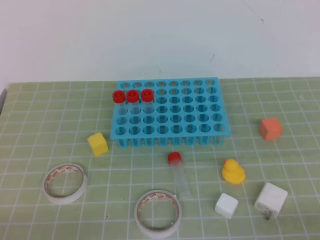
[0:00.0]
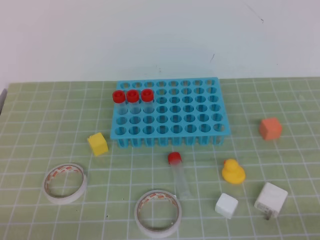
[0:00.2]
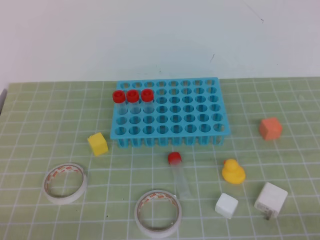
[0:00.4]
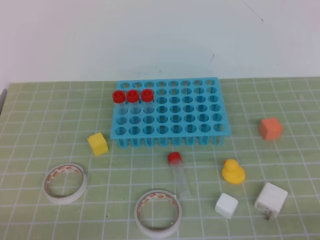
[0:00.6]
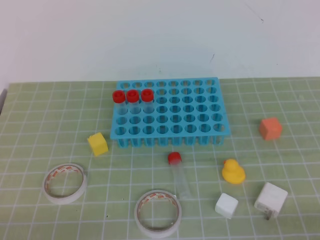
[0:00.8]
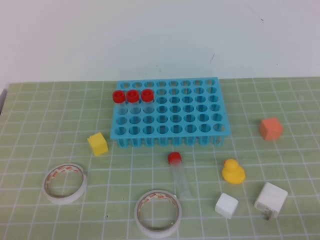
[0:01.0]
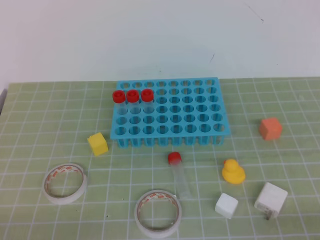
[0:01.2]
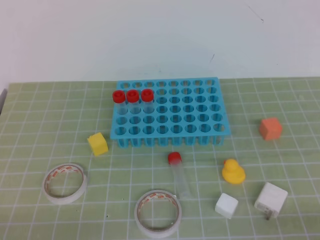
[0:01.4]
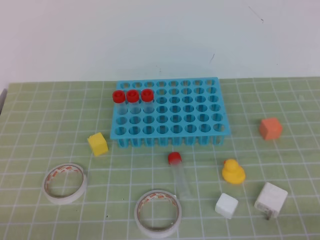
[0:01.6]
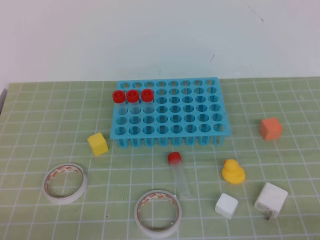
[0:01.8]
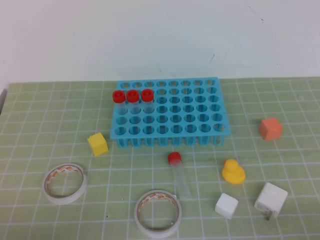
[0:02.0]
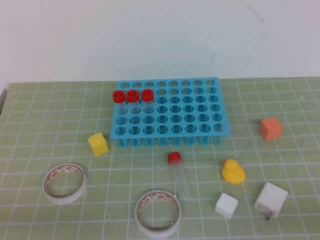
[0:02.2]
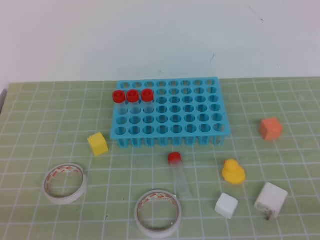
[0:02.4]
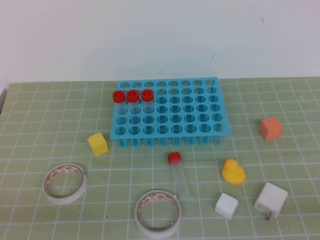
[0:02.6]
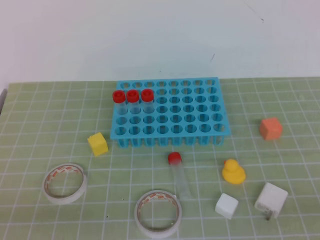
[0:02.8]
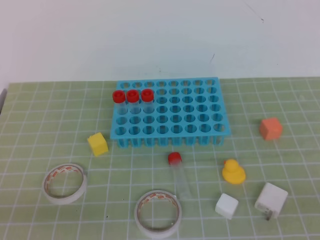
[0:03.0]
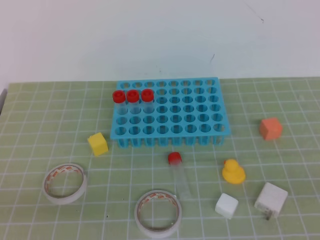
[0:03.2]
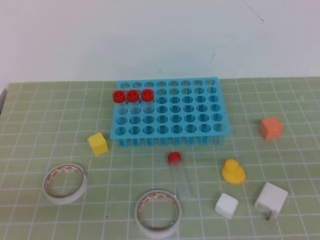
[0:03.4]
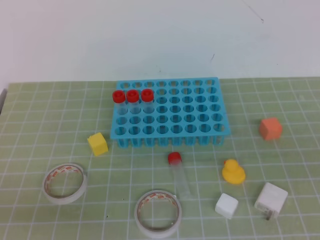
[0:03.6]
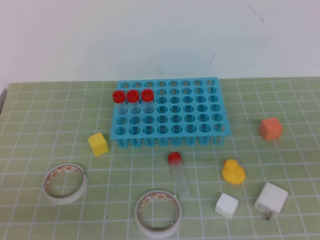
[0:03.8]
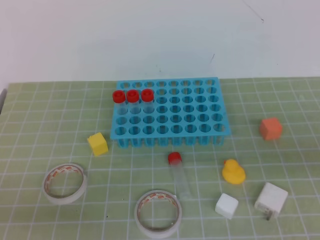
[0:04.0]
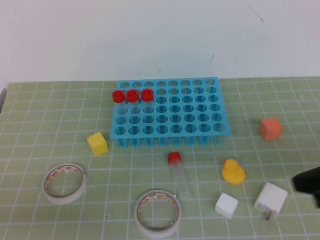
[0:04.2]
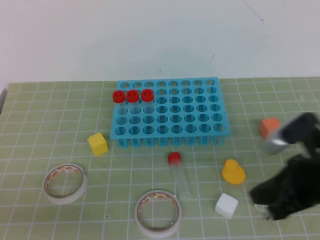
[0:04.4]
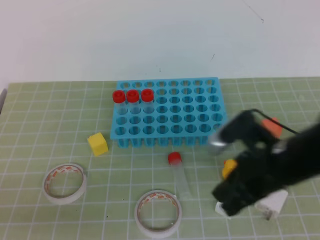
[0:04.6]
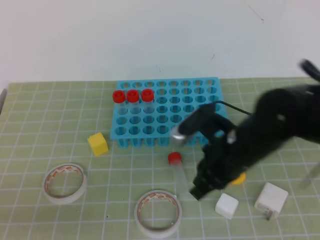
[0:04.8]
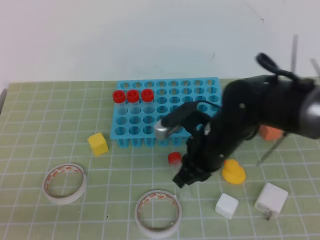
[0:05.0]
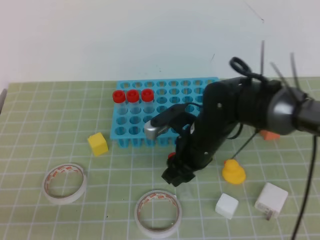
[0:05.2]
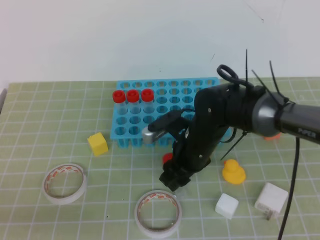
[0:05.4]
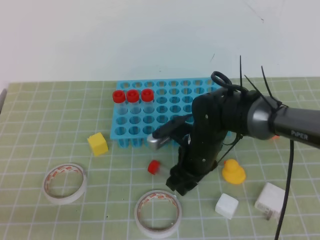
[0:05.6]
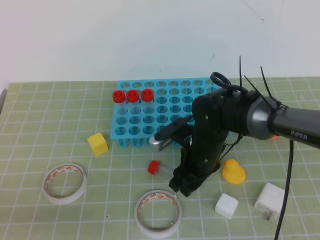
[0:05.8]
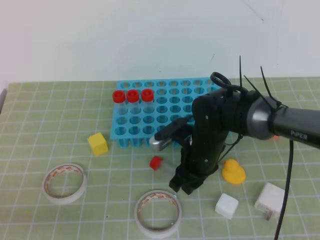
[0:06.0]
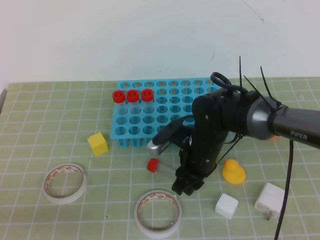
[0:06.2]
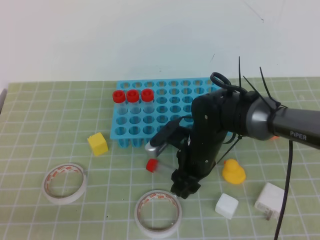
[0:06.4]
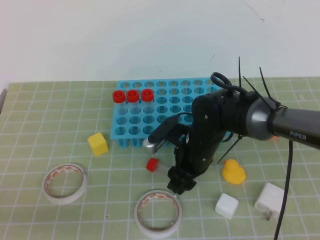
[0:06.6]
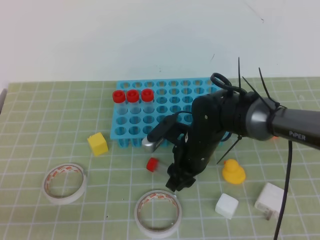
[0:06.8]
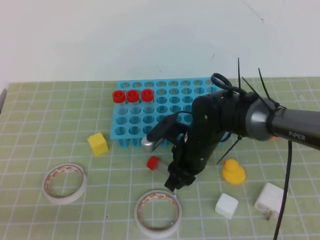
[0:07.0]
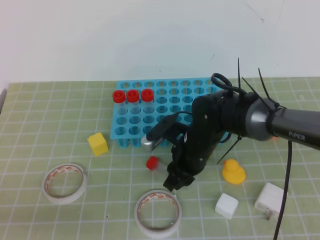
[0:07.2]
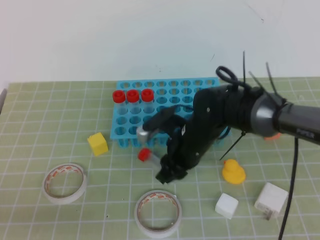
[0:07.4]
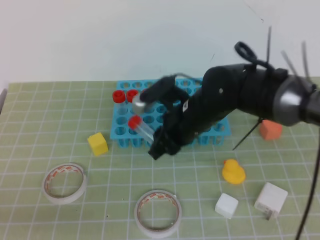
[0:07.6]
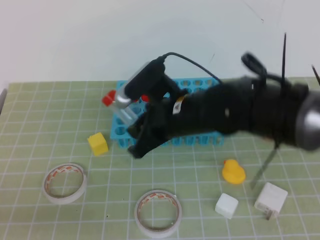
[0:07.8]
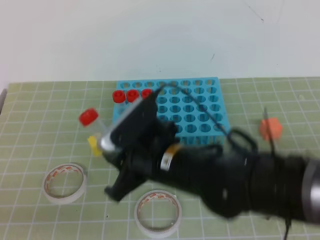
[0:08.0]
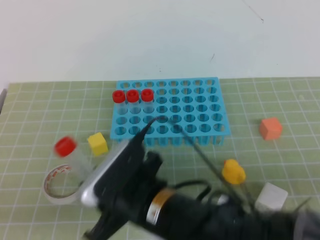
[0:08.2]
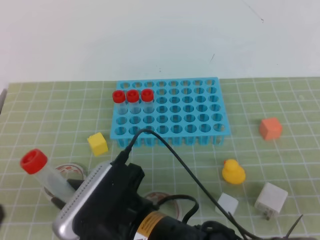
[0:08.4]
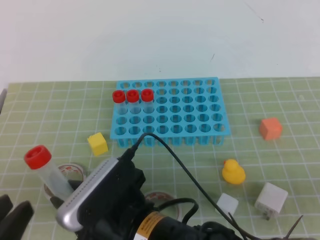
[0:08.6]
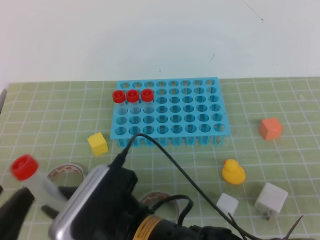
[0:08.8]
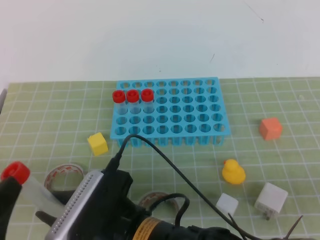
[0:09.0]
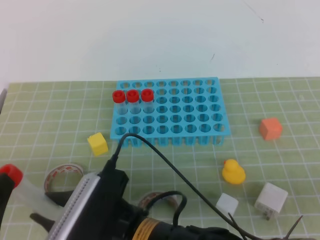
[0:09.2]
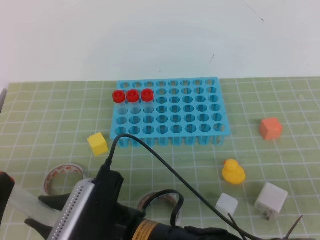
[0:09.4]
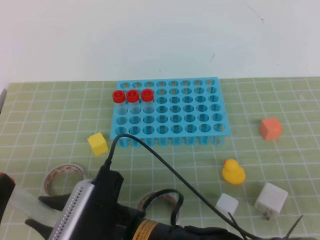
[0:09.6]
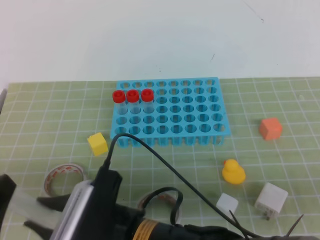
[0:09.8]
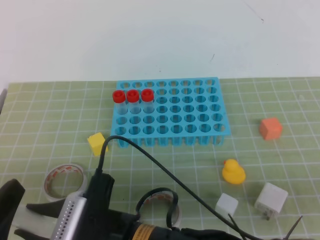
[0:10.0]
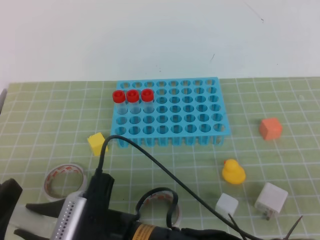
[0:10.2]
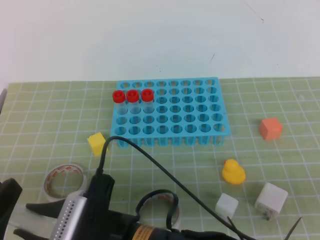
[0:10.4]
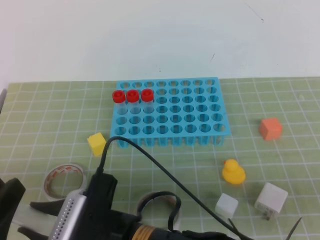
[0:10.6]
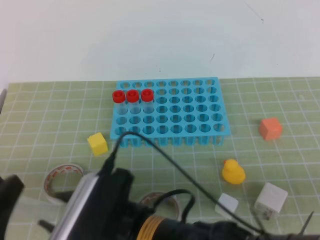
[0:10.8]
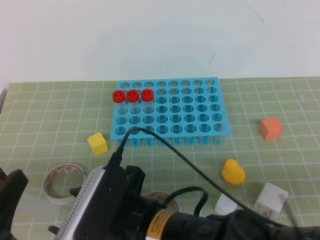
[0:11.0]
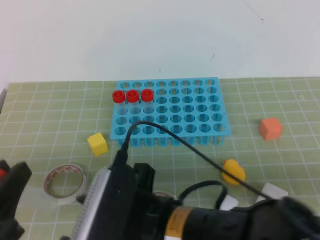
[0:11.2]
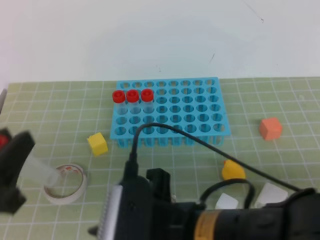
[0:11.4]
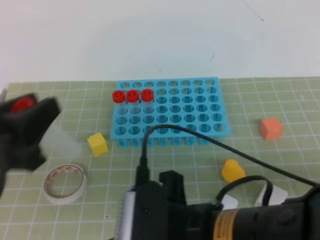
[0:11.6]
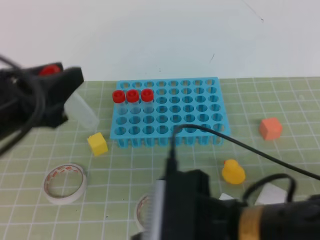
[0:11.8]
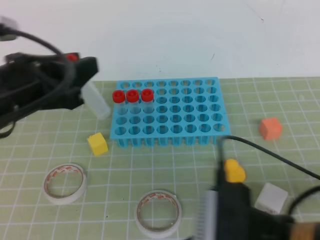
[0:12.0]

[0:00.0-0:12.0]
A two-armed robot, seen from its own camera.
0:00.0 to 0:01.6: Neither gripper changes place.
0:03.0 to 0:04.4: The right gripper goes about 20 cm forward and to the left.
0:04.4 to 0:06.0: The right gripper goes some 25 cm to the left, forward and downward, and opens its fingers.
0:06.0 to 0:07.6: The right gripper goes about 5 cm upward.
0:07.6 to 0:09.0: The left gripper opens, while the right gripper travels backward by approximately 20 cm.
0:09.0 to 0:10.4: The left gripper closes.
0:10.4 to 0:12.0: The right gripper heads to the right and upward, covering about 15 cm, and closes. The left gripper is displaced forward and upward by some 20 cm.

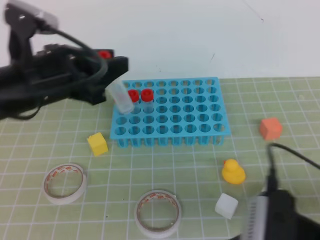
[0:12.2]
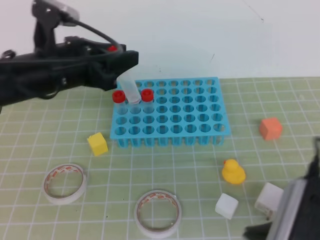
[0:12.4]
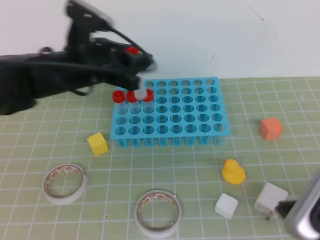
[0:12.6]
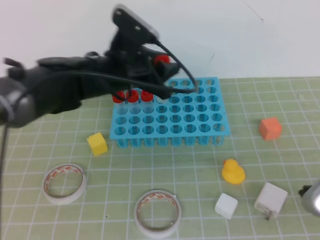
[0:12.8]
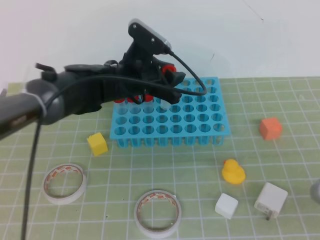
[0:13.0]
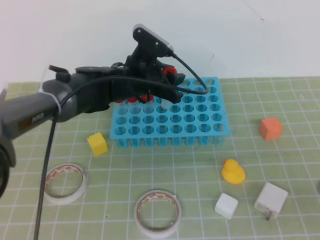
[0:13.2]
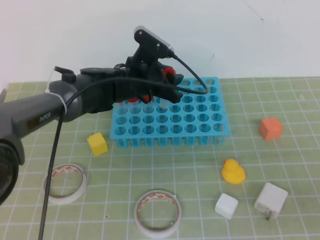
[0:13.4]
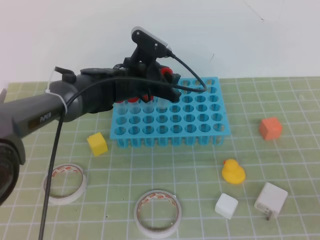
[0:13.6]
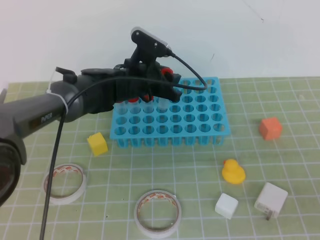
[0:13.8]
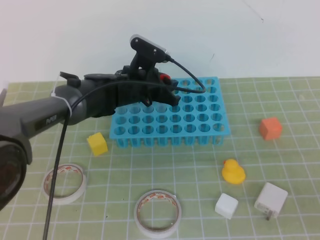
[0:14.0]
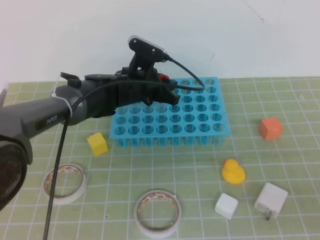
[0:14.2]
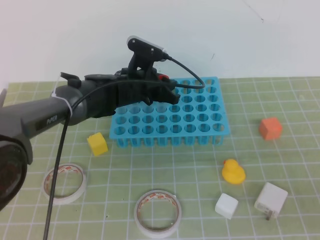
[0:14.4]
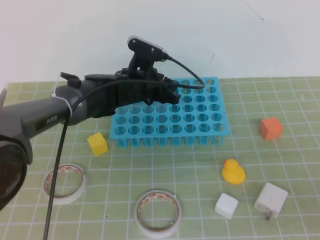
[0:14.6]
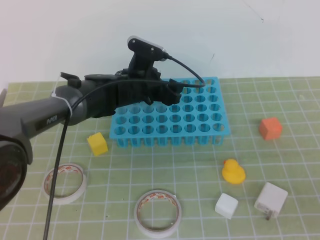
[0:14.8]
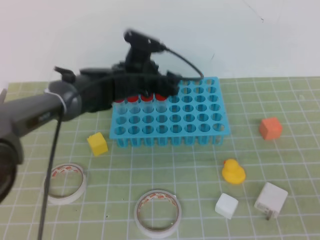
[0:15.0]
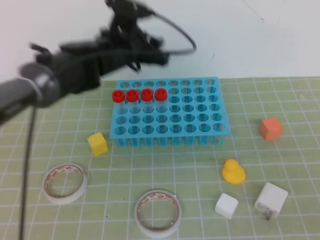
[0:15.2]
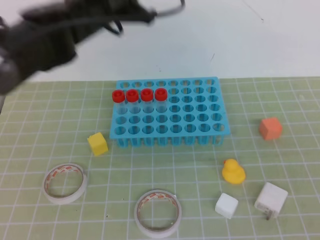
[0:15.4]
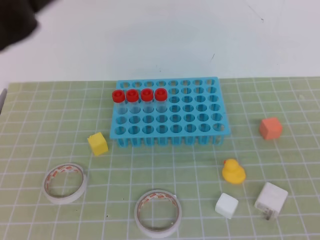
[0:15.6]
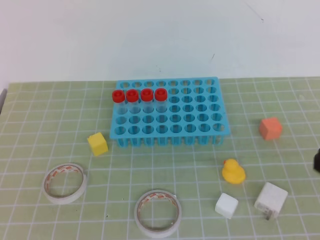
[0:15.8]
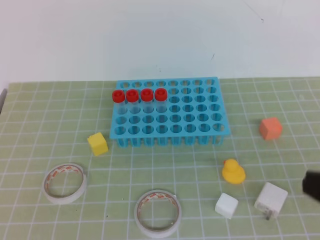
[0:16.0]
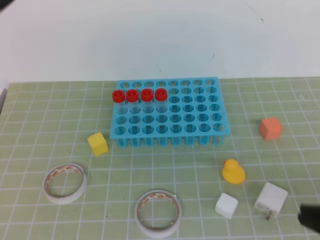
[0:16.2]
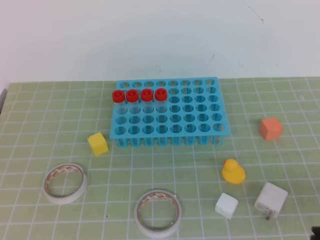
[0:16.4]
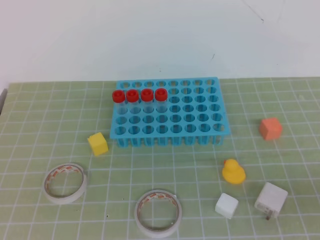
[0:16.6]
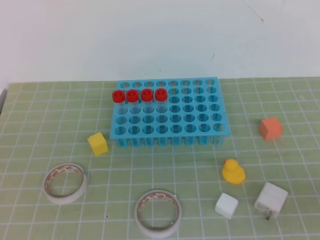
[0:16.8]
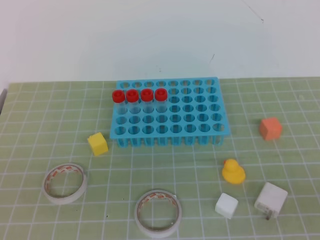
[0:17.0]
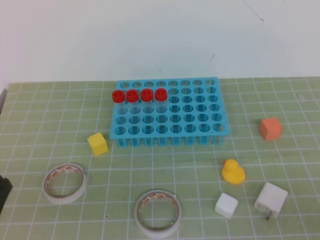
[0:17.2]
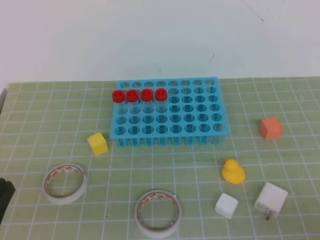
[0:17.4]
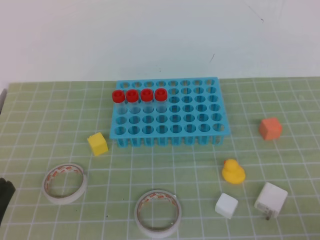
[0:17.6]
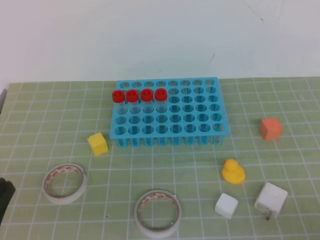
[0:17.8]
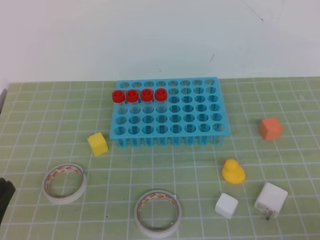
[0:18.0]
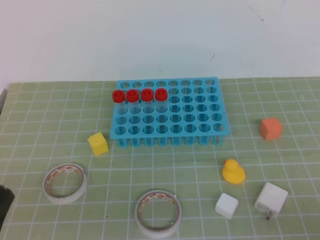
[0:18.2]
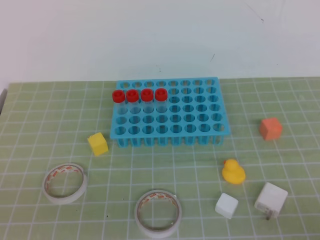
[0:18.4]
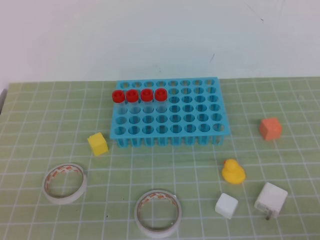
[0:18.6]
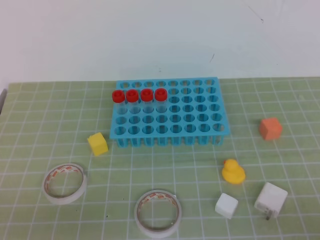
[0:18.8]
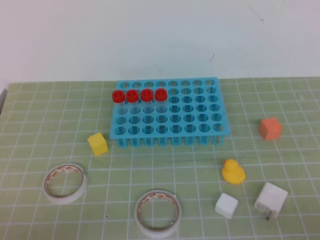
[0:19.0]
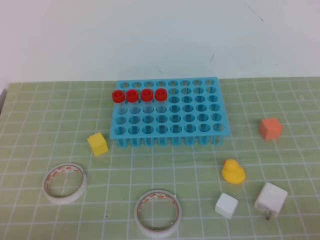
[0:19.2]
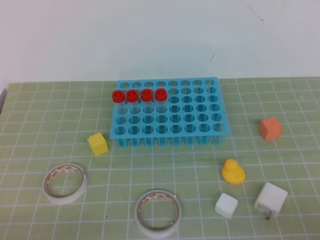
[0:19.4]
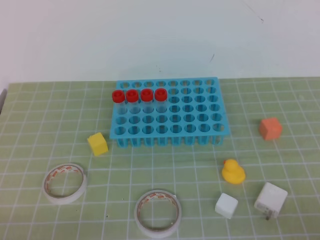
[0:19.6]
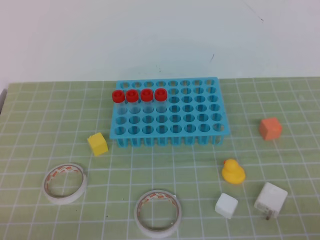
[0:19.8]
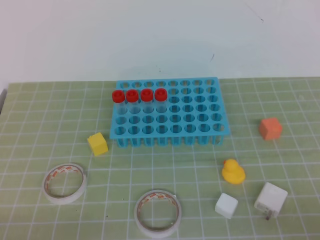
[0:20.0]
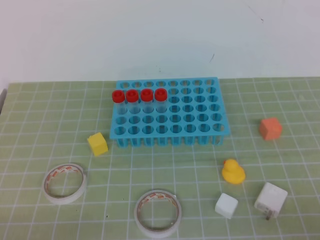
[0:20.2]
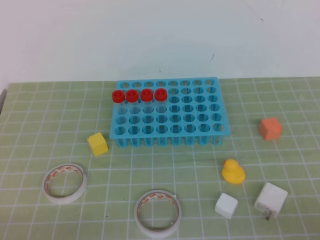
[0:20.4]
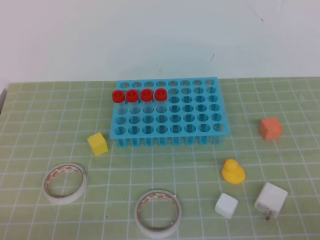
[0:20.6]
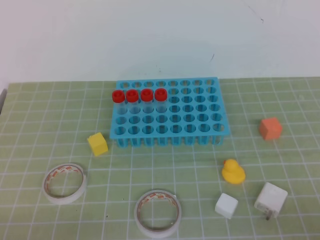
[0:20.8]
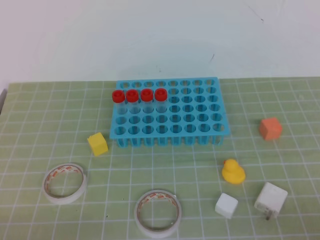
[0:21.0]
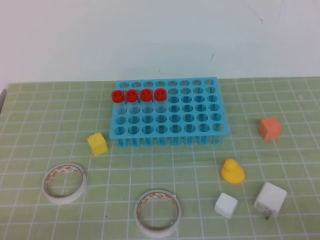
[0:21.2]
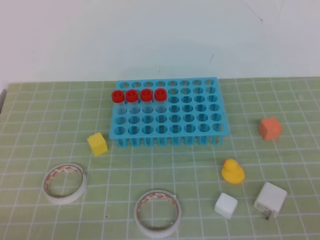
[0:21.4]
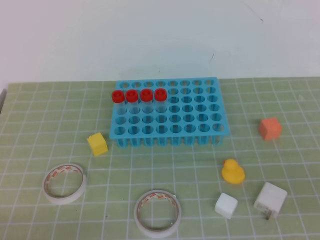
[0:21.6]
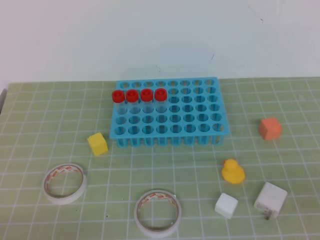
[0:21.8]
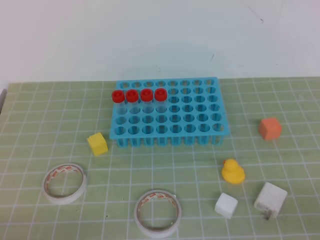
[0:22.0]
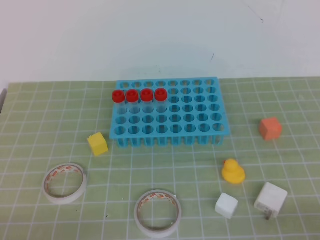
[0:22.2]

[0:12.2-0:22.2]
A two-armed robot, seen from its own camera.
0:12.2 to 0:13.6: The right gripper heads to the right, covering some 10 cm. The left gripper shifts about 25 cm forward, downward and to the right.
0:13.6 to 0:15.0: The left gripper opens its fingers.
0:15.0 to 0:16.4: The right gripper moves some 5 cm; the left gripper moves backward, upward and to the left, about 40 cm, and closes.
0:16.4 to 0:18.0: The right gripper travels downward and to the right by about 10 cm; the left gripper goes approximately 25 cm downward and backward.
0:19.4 to 0:20.8: Both grippers stay put.
